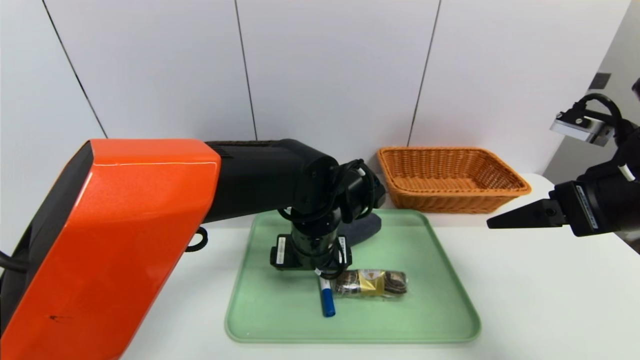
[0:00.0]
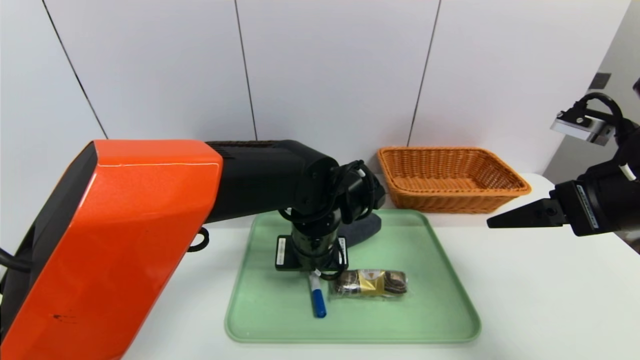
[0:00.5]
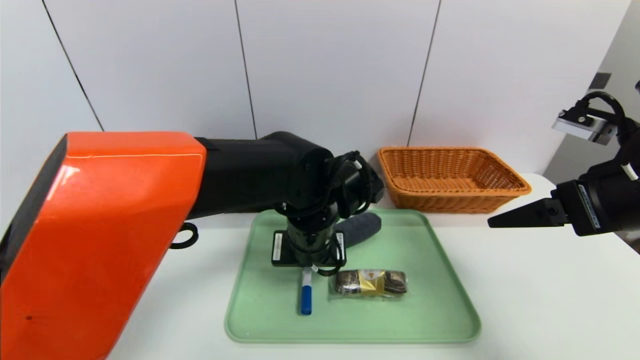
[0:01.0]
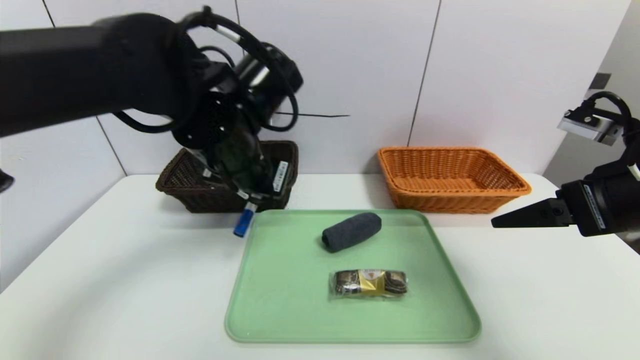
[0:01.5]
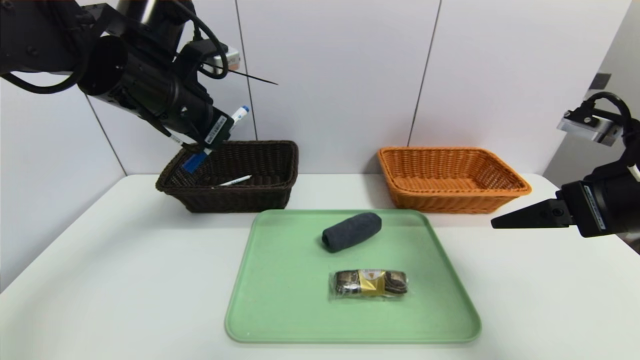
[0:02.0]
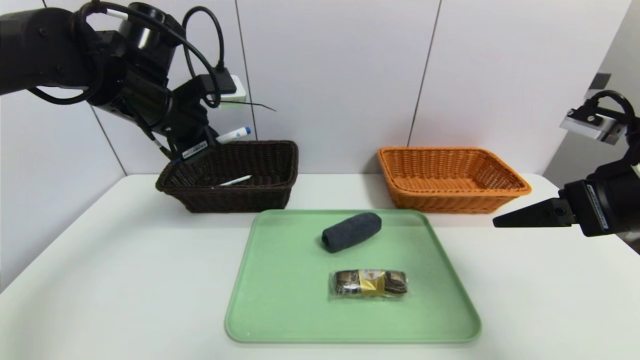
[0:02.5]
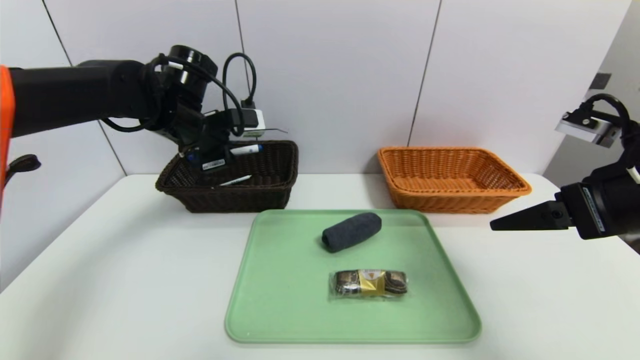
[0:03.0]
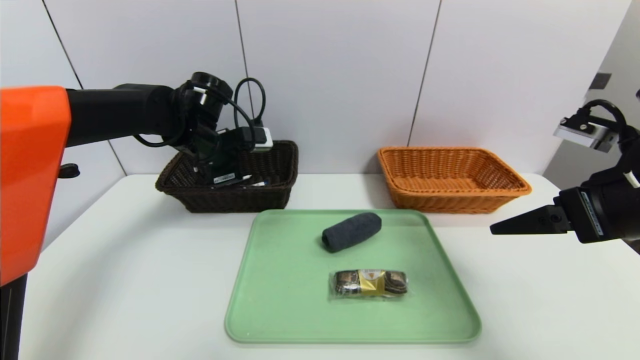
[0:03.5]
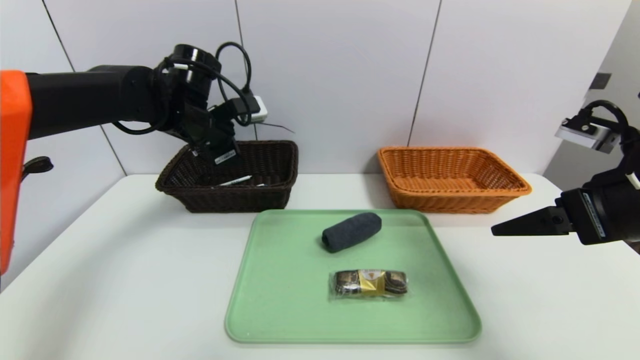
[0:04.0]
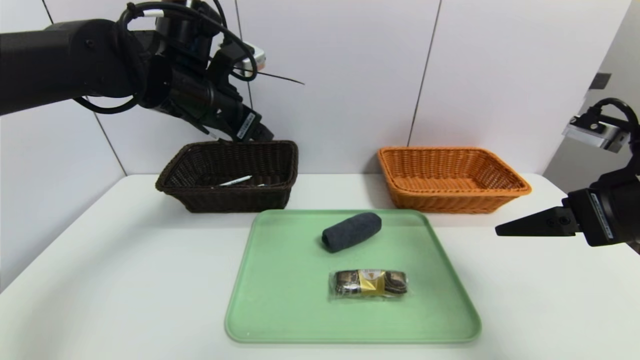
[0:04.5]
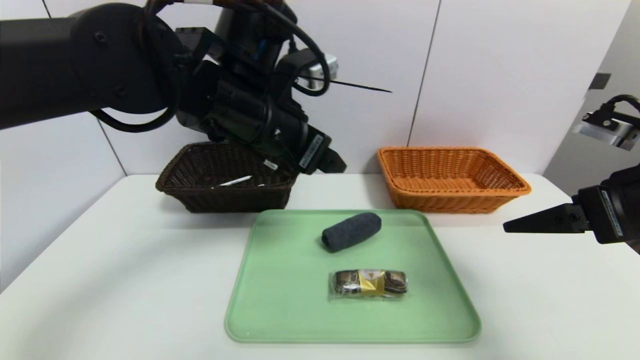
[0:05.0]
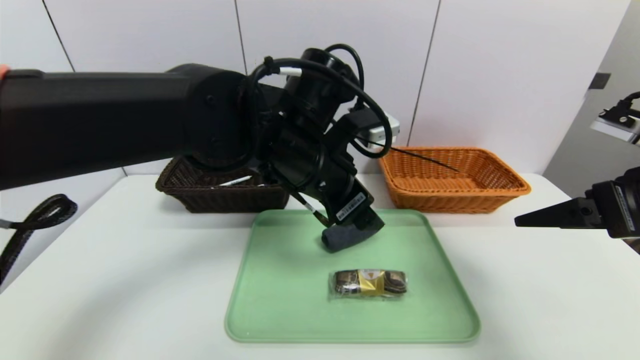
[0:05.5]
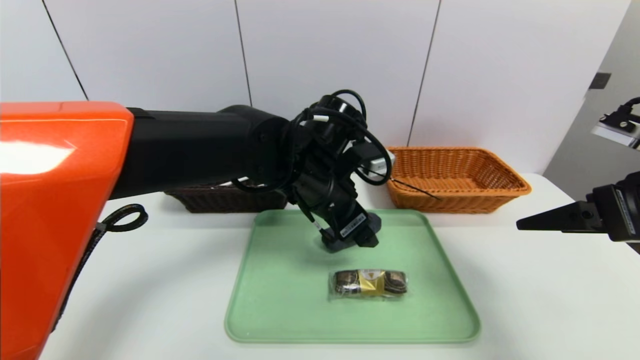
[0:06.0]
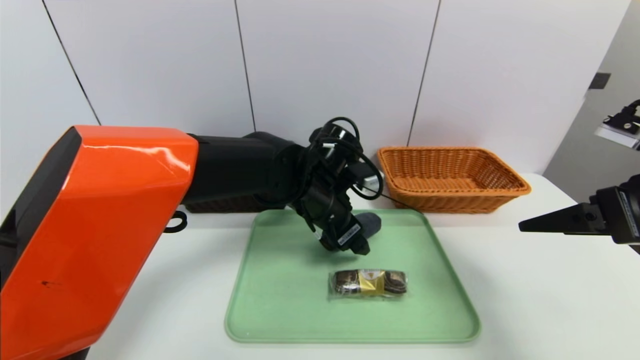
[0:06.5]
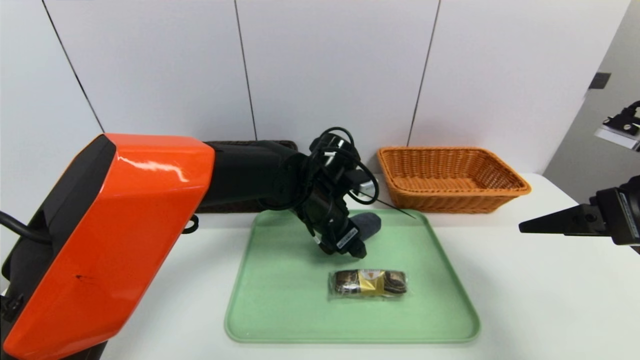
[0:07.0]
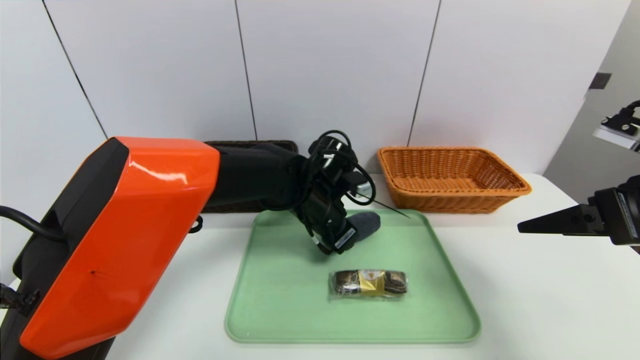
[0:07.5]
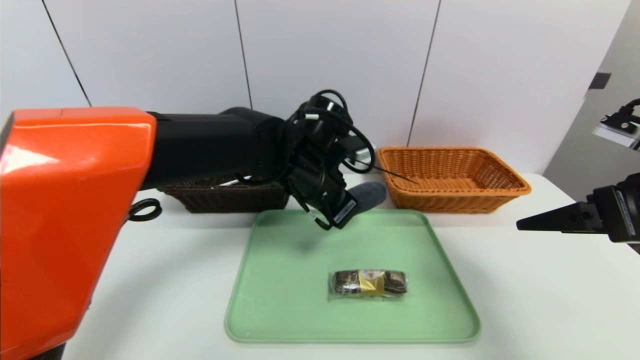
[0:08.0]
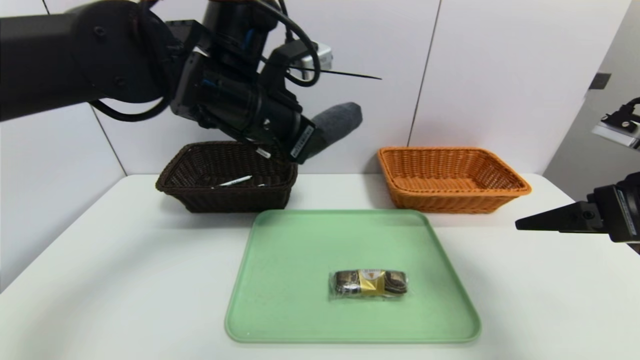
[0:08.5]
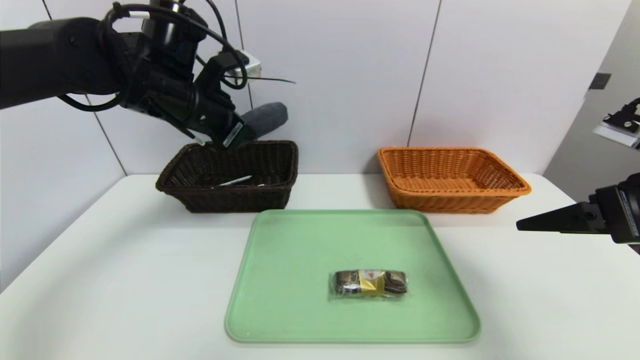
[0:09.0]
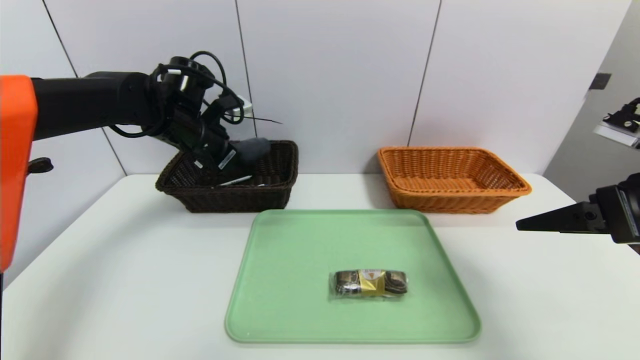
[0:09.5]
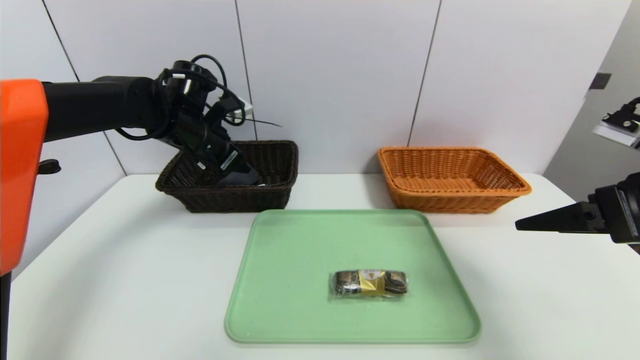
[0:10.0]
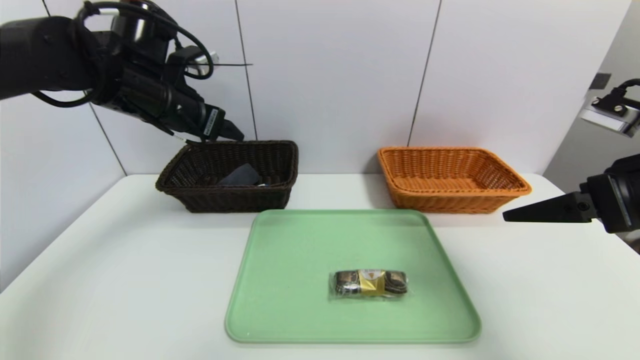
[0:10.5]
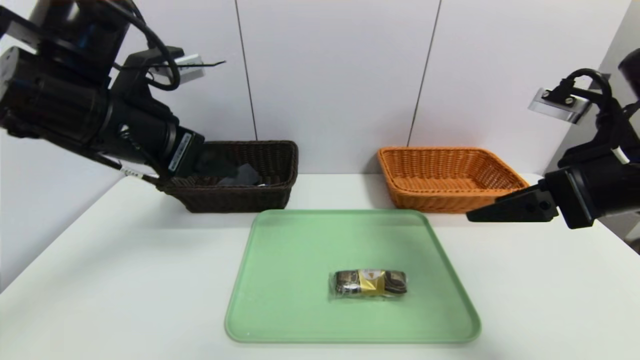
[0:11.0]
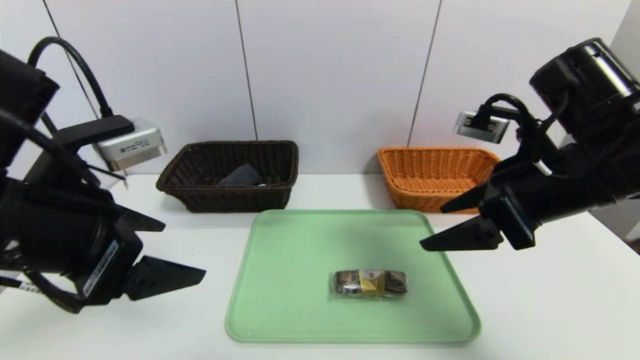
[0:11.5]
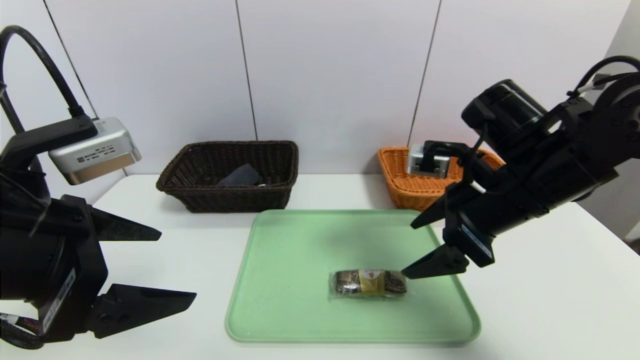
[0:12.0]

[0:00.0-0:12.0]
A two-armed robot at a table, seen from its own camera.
Task of the whole recording: place the food in the right basket with the right gripper, and place the non food items in the left basket with the left gripper.
Step, 0:00.0 to 0:03.5: Grasp the blue marker and put it in the left basket.
Step, 0:04.0 to 0:10.0: Grasp the grey towel and put it in the left basket.
0:00.0 to 0:02.0: The left gripper shifts approximately 25 cm to the left and upward, and closes up.
0:02.0 to 0:04.0: The left gripper heads forward and downward, covering roughly 10 cm, and opens its fingers.
0:04.0 to 0:06.0: The left gripper heads to the right and backward, covering about 20 cm.
0:06.0 to 0:08.0: The left gripper closes its fingers.
0:08.0 to 0:10.0: The left gripper heads to the left and forward, covering some 20 cm, and opens its fingers.
0:10.0 to 0:12.0: The left gripper heads backward, covering about 30 cm. The right gripper travels to the left and forward by some 15 cm.

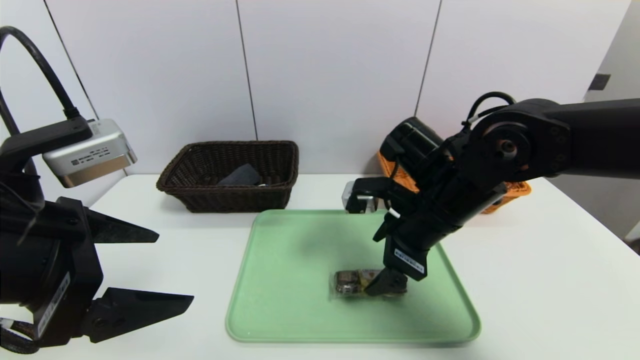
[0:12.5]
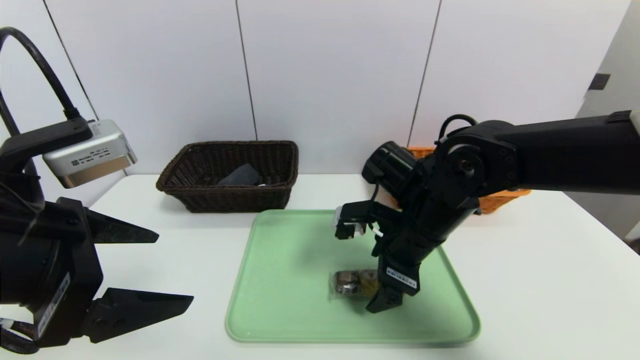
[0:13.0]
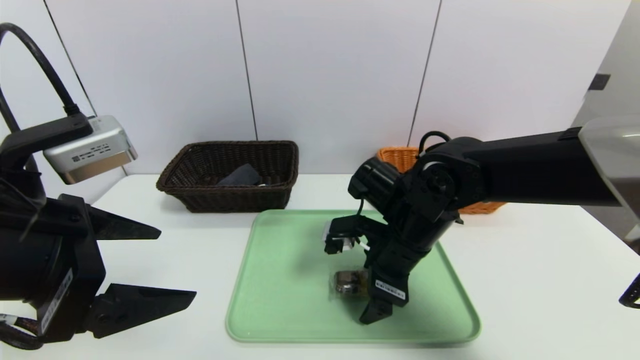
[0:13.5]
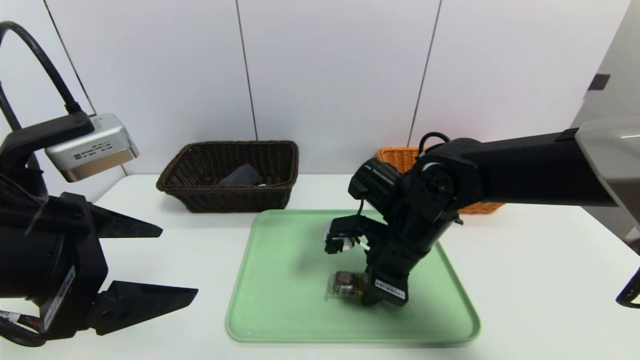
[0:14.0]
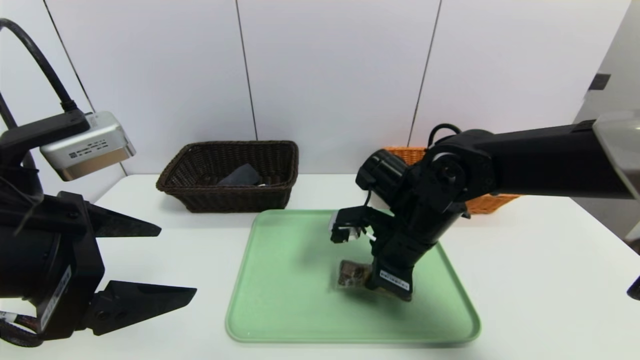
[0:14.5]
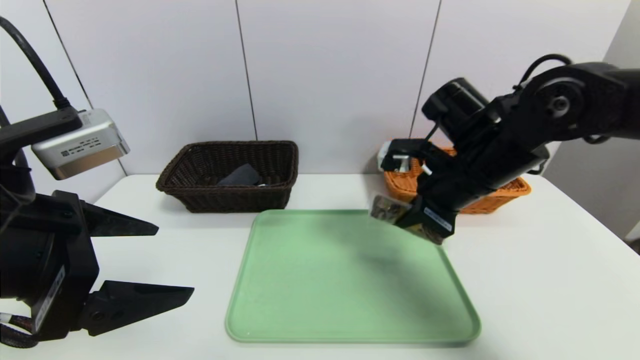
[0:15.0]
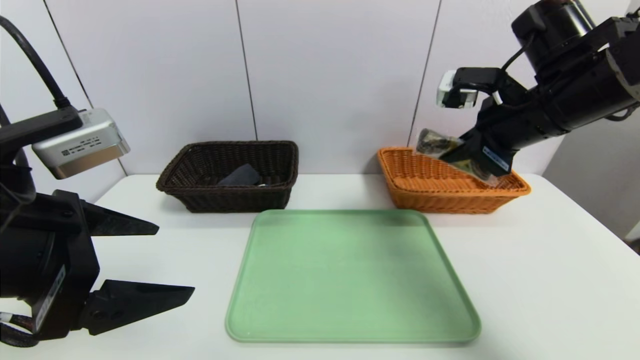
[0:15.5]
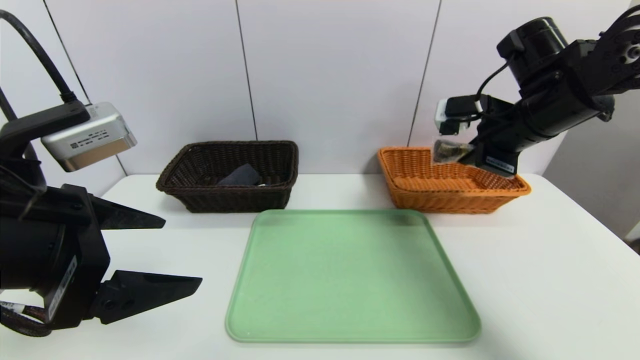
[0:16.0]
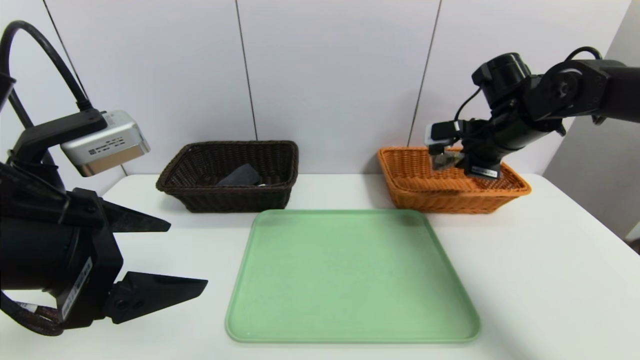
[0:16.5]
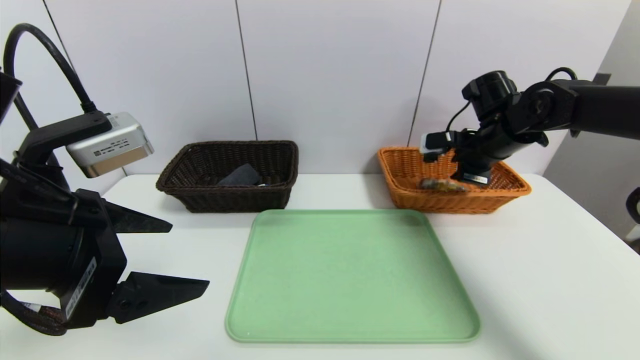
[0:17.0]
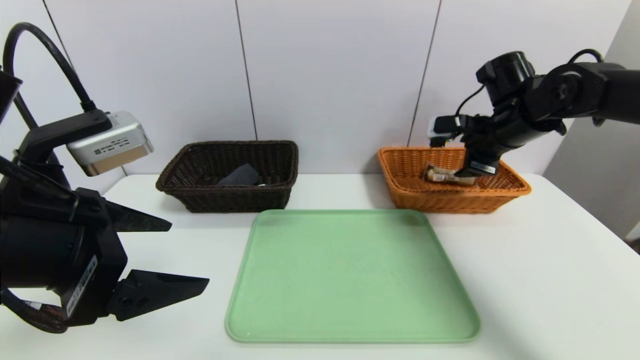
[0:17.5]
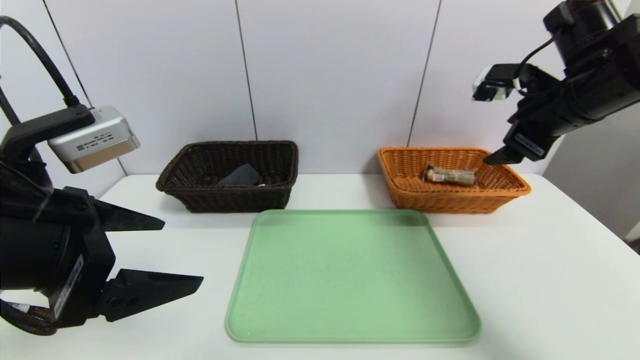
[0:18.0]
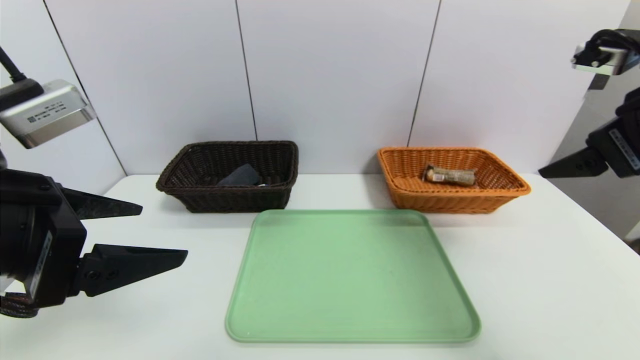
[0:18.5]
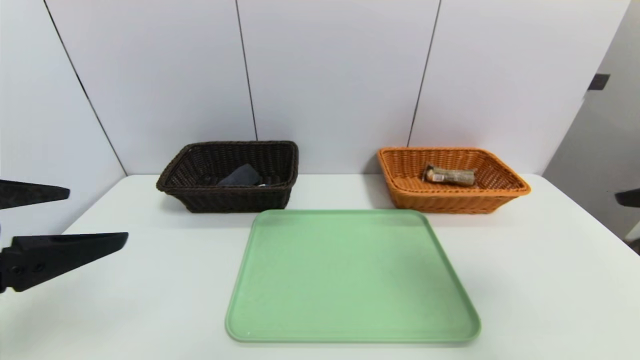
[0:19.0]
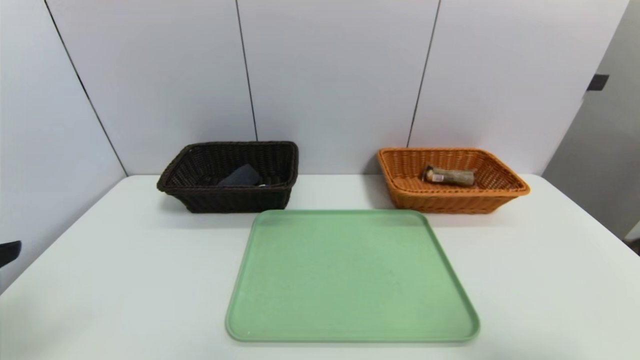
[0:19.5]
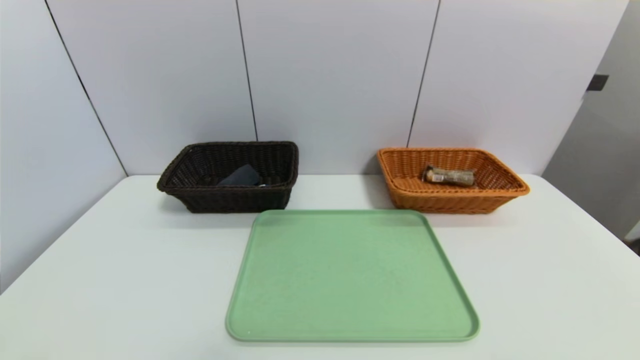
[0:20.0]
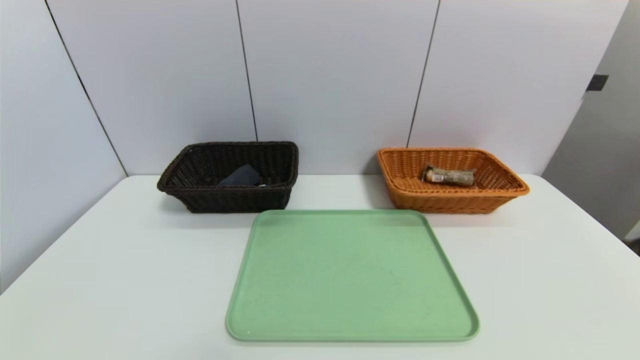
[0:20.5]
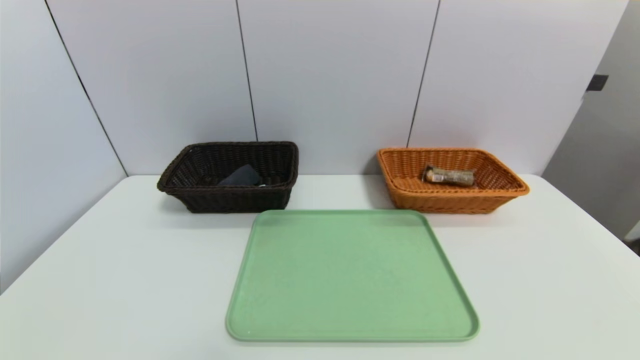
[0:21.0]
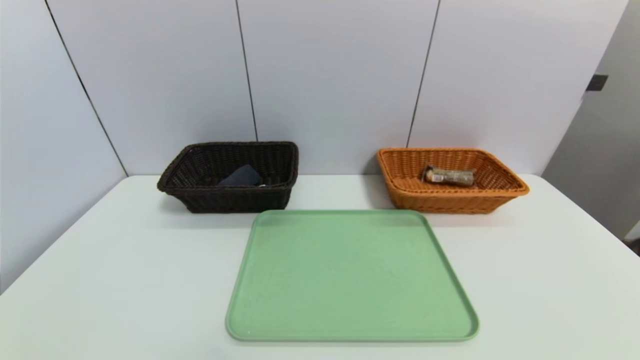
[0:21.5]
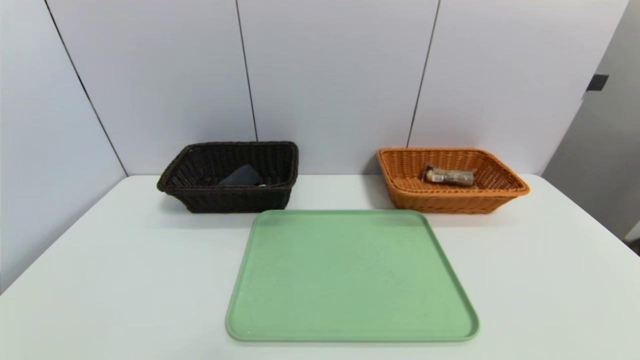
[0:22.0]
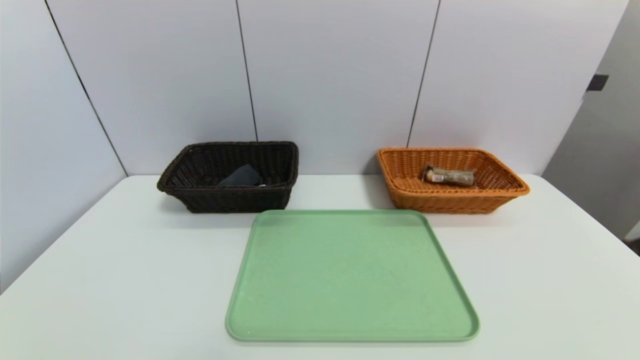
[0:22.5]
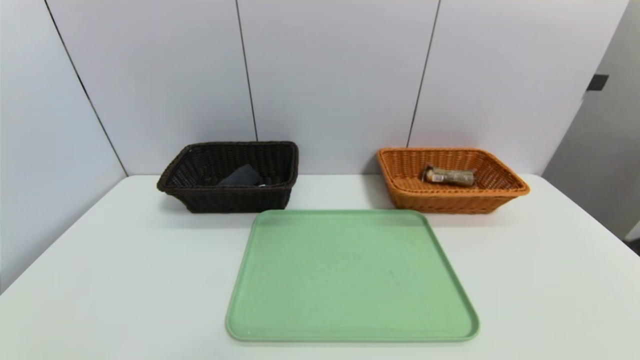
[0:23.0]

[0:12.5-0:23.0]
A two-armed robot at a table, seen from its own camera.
Task of the whole recording: place the food in the right basket with the right gripper, and place the non food items in the left basket with the left gripper.
Step, 0:12.5 to 0:17.0: Grasp the chocolate and put it in the right basket.
0:12.5 to 0:14.5: The right gripper closes up.
0:14.5 to 0:16.5: The right gripper moves to the right, forward and upward, roughly 20 cm.
0:16.5 to 0:19.0: The left gripper shifts by approximately 5 cm. The right gripper shifts roughly 30 cm backward, and opens up.
0:19.0 to 0:21.0: The two grippers go about 25 cm backward and downward.
